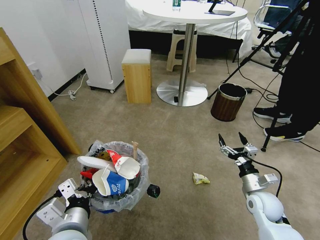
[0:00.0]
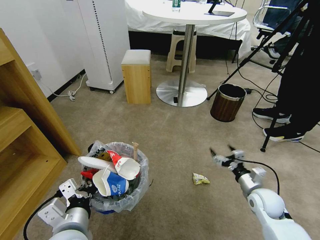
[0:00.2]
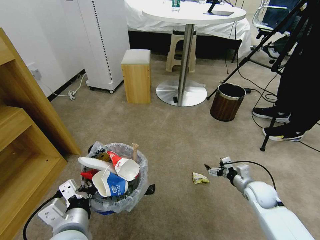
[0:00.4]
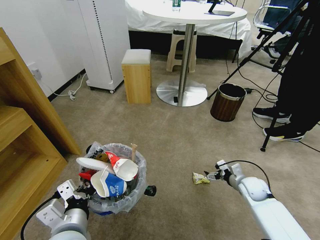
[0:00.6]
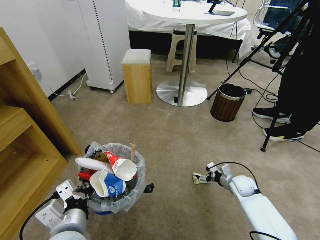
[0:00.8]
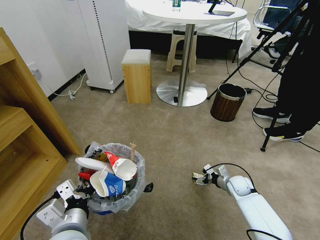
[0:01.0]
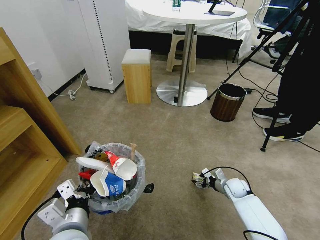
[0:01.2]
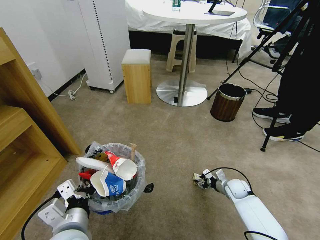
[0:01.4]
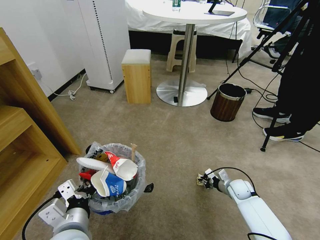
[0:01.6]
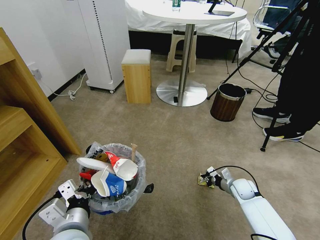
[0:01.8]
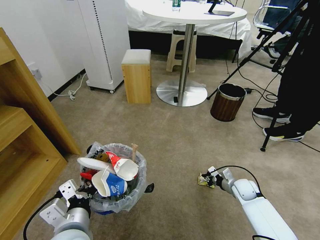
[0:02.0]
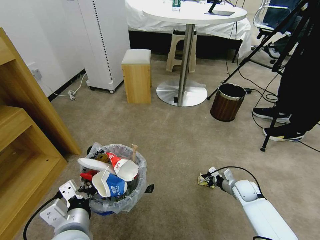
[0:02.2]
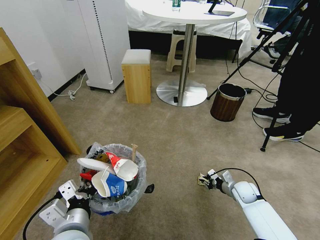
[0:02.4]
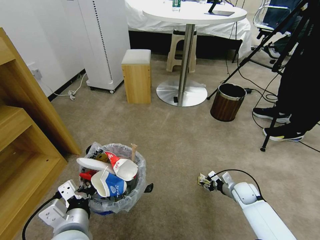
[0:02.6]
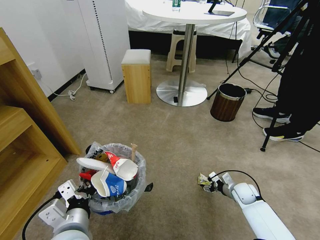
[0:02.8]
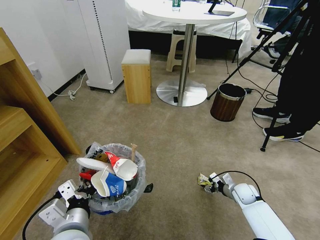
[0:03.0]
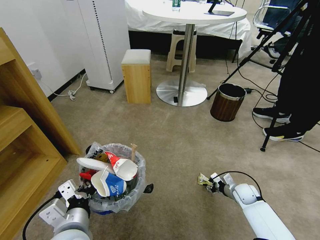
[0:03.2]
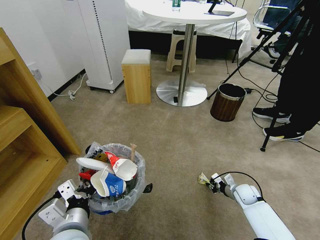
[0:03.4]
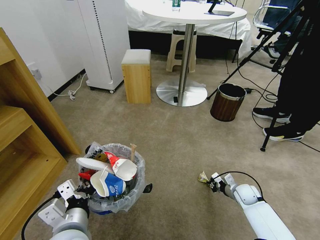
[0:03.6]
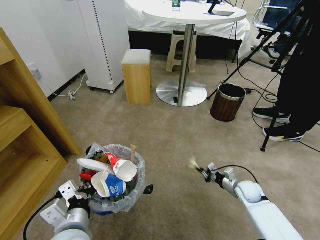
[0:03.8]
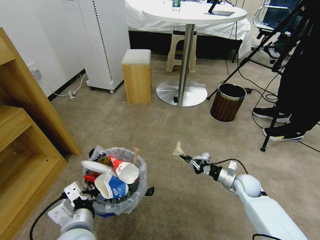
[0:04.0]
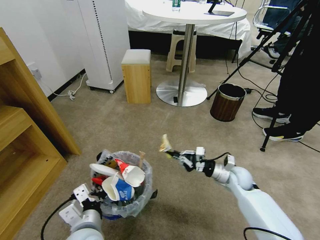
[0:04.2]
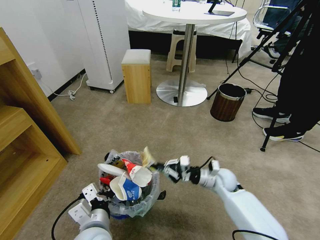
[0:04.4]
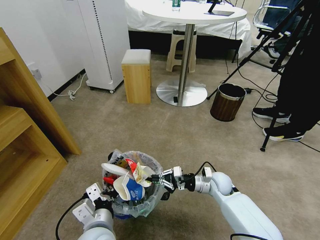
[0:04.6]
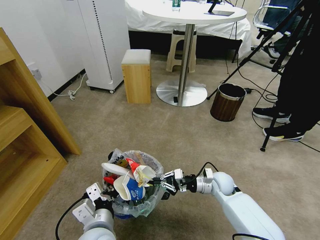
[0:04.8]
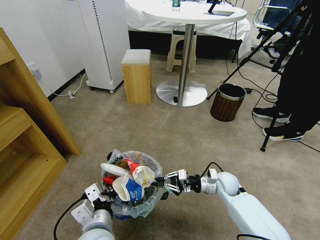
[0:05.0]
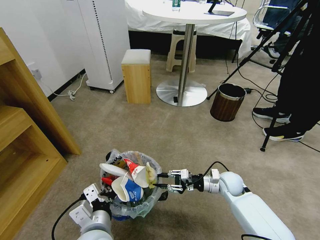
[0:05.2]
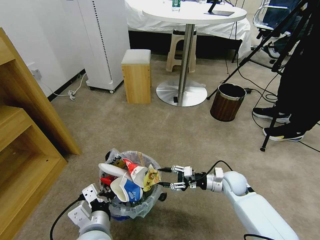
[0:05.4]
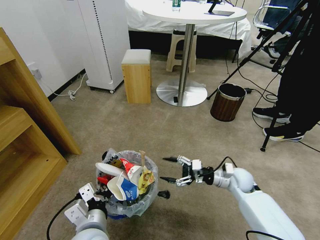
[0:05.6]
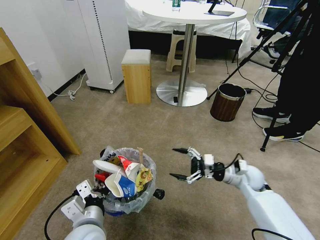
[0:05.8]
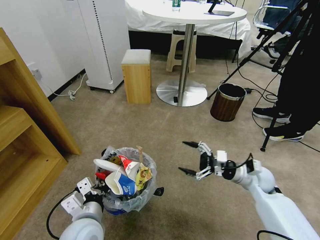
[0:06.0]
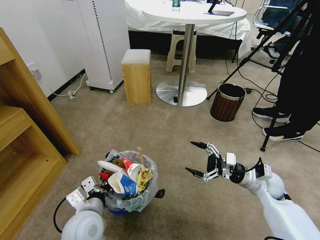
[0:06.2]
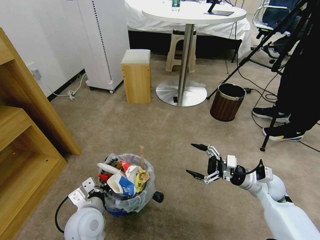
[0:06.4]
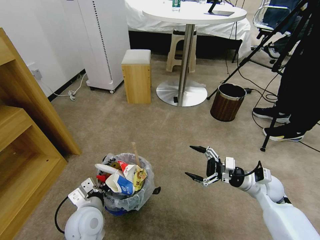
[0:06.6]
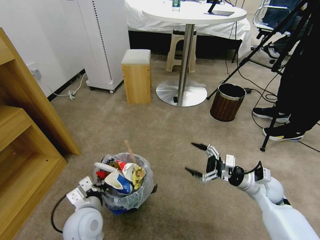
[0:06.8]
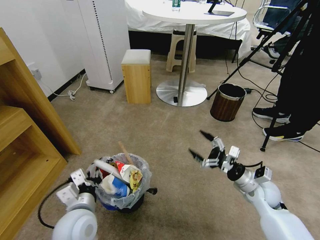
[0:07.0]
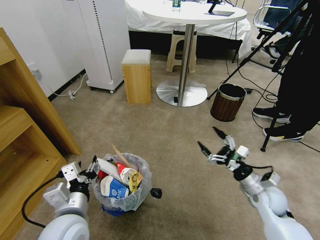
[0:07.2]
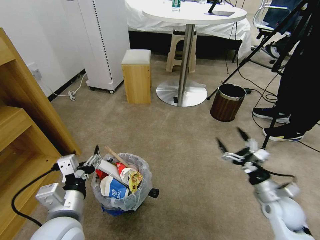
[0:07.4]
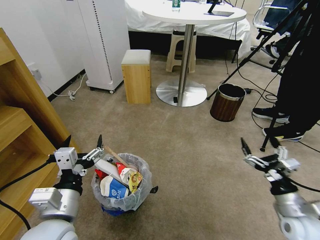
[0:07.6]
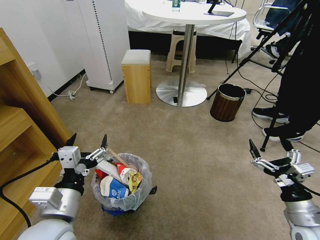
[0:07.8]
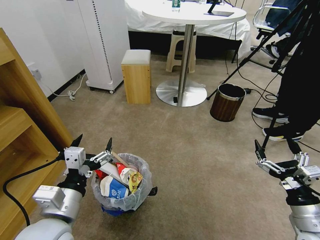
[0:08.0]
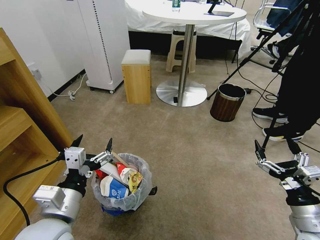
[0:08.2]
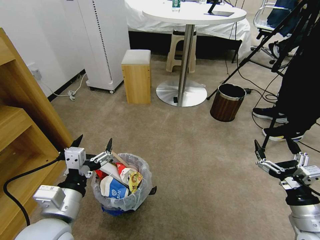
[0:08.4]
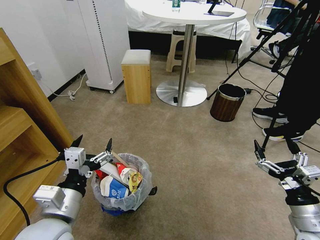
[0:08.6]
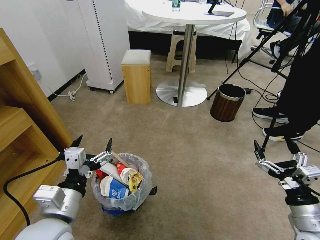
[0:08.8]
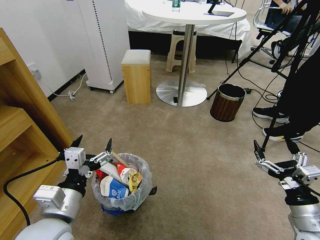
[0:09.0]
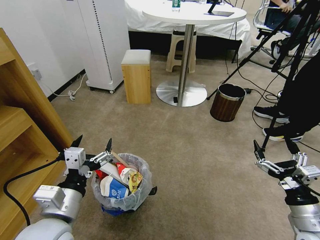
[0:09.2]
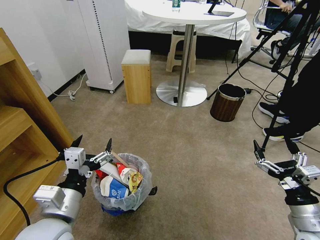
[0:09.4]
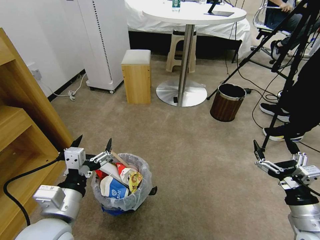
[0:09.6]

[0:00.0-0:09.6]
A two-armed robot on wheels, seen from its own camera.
Task of the whole recording: Pick up the trash bin and place the garbage on the floor into it.
0:00.0 to 0:01.6: The right gripper moves downward and forward, some 15 cm, and closes its fingers.
0:01.6 to 0:03.2: The grippers stay close to where they were, moving slightly.
0:03.2 to 0:04.8: The right gripper travels to the left and upward by roughly 15 cm, and closes up, while the left gripper shifts by approximately 5 cm.
0:04.8 to 0:06.4: The left gripper is displaced forward and to the left by roughly 10 cm. The right gripper travels to the right and upward by roughly 15 cm, and opens up.
0:06.4 to 0:08.0: The right gripper heads backward, covering about 20 cm. The left gripper shifts approximately 15 cm upward and backward, and opens up.
0:08.0 to 0:09.6: The two grippers keep their place.
